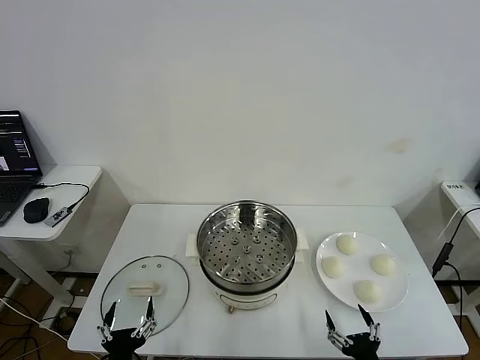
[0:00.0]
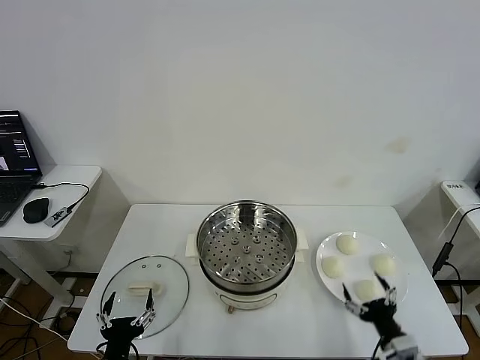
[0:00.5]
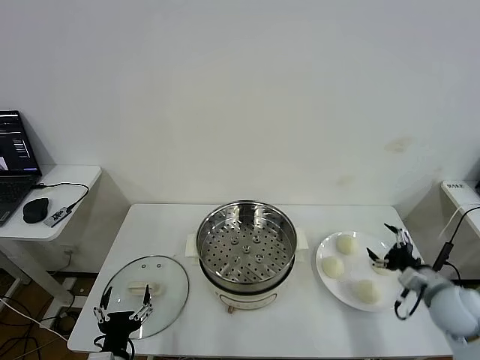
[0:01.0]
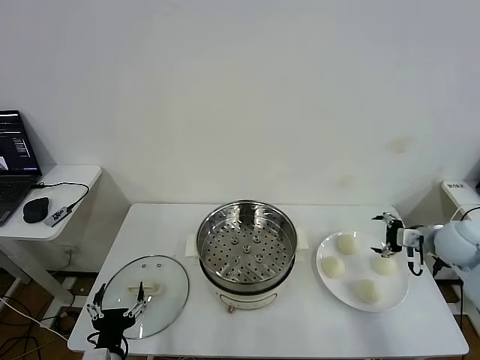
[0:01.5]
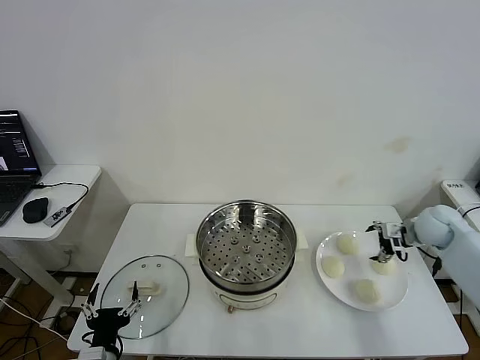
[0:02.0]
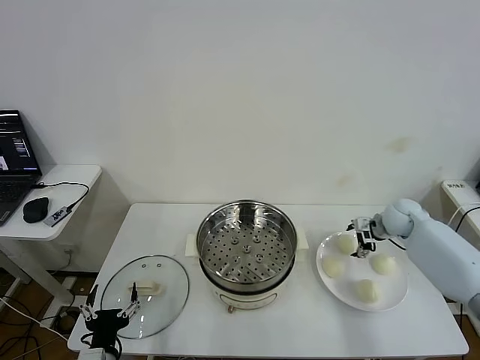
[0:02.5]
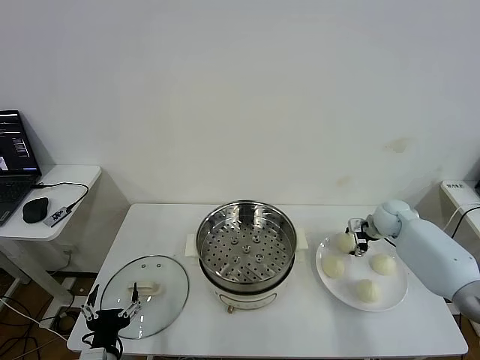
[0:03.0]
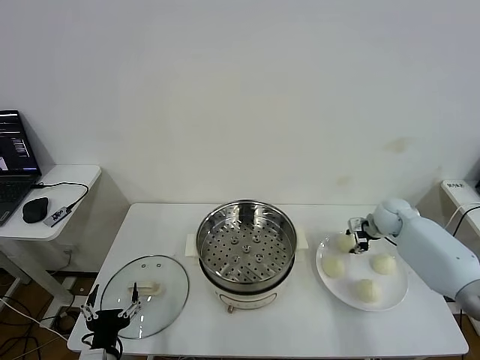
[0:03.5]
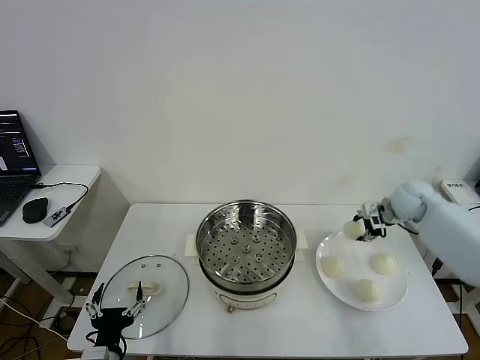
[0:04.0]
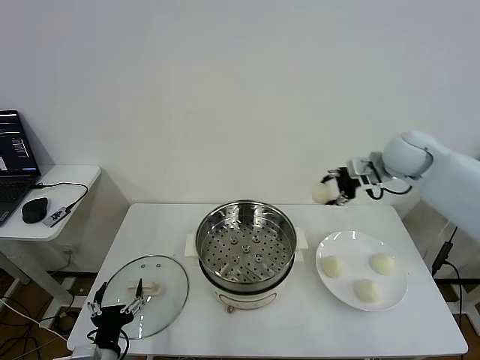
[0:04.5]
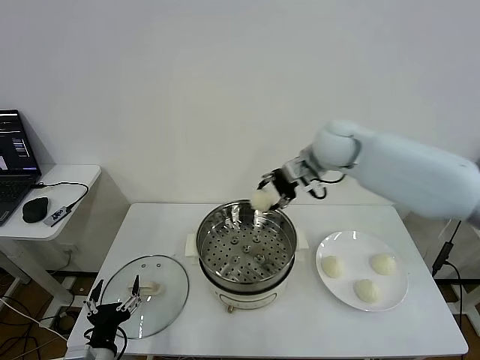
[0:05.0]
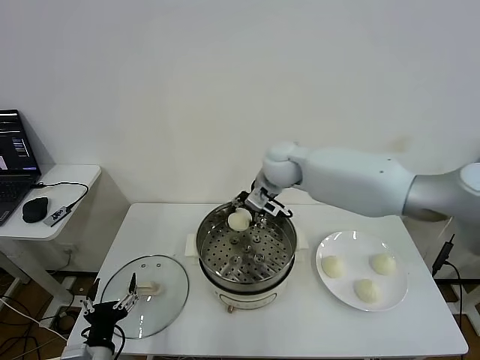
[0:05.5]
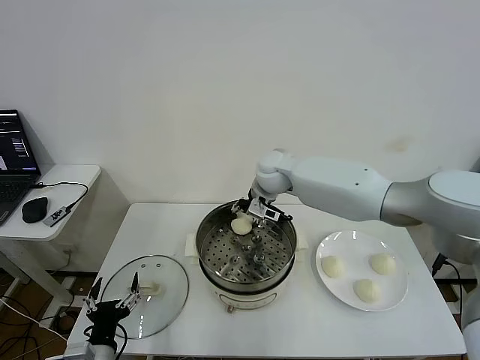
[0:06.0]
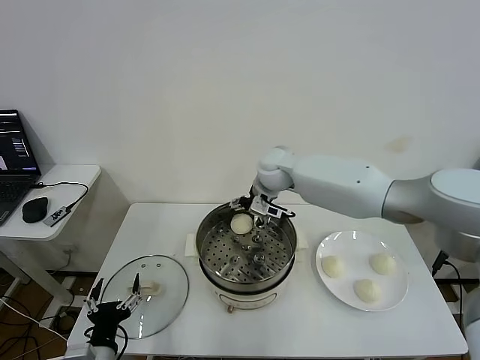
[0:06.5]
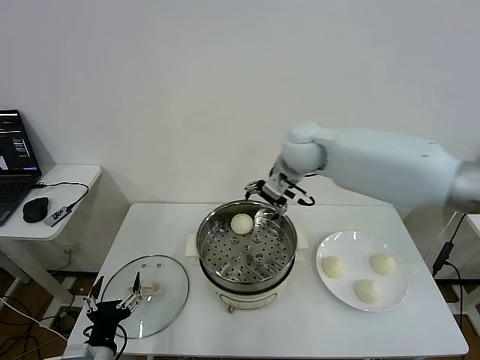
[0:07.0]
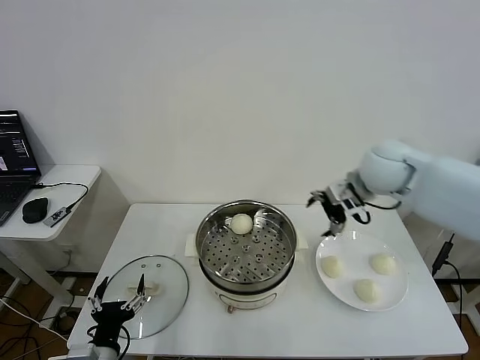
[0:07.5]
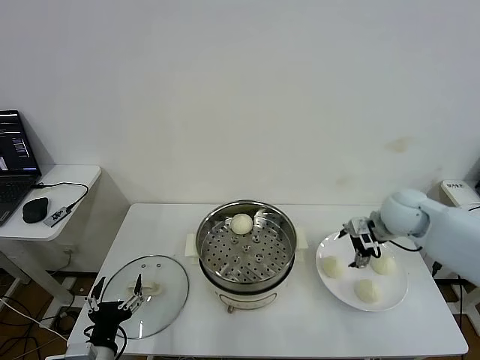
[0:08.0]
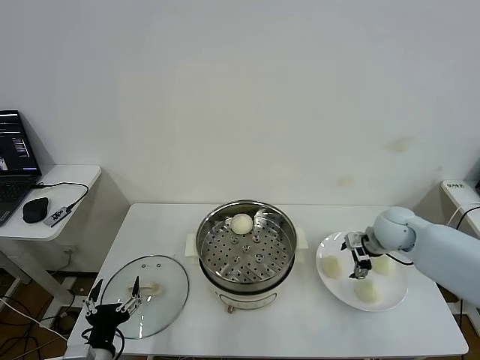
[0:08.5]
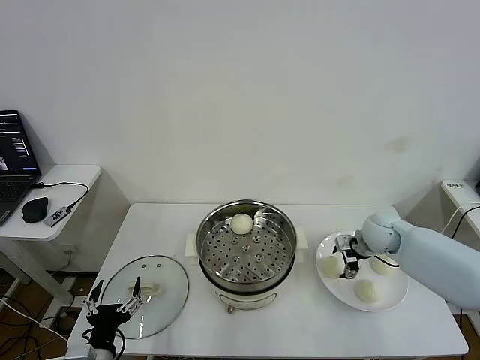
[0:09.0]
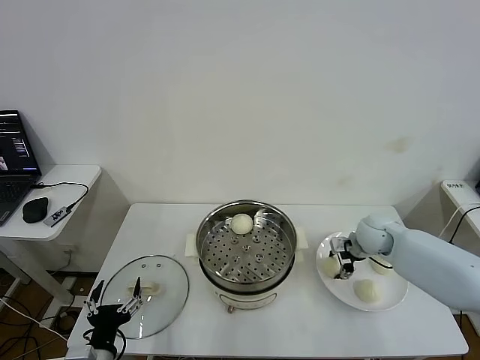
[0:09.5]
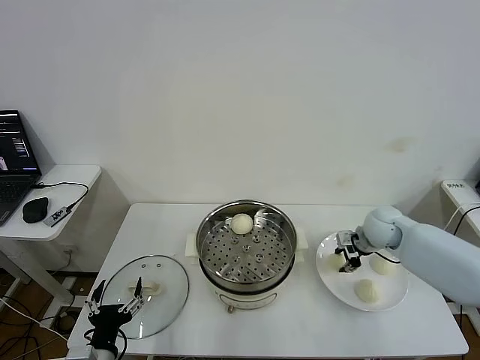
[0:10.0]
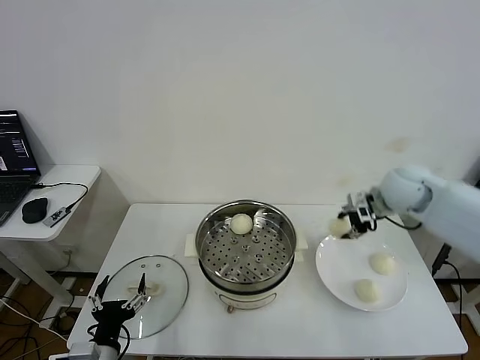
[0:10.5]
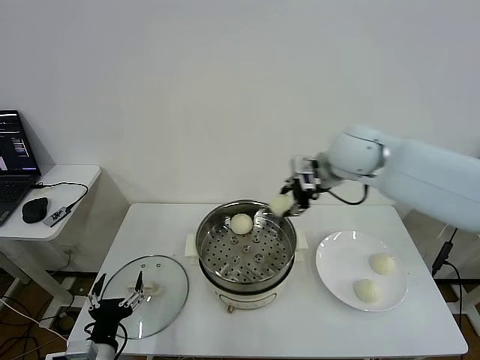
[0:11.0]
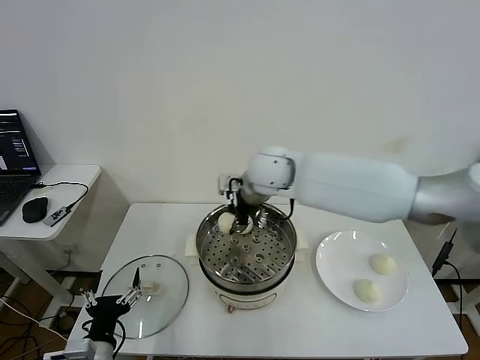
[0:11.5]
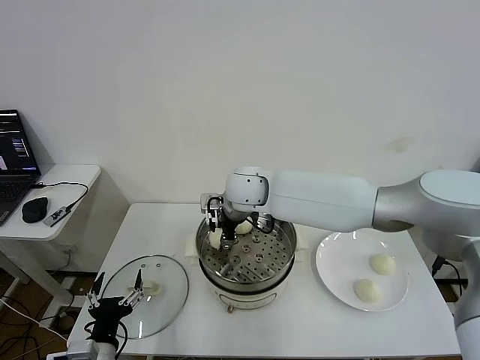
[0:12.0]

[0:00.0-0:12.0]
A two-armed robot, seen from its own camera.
Task of the whole recording: take steamed baozi put them in steamer then cover it.
Step, 0.0 to 3.0 s: Grasp the baozi in the plate with right gripper.
Step, 3.5 to 6.0 s: Place the baozi on the steamer with right gripper.
Step, 6.5 to 9.5 s: Grasp the baozi in the plate with right gripper.
2.0 to 4.0 s: The right gripper shifts about 5 cm forward, and closes.
4.0 to 6.0 s: The right gripper is displaced to the left by approximately 35 cm.
6.0 to 8.0 s: The right gripper moves to the right, approximately 25 cm, and opens.
8.0 to 10.0 s: The right gripper travels downward by roughly 10 cm, and closes its fingers.
10.0 to 12.0 s: The right gripper travels to the left by some 35 cm.

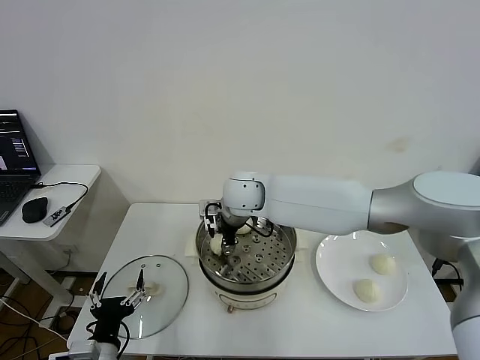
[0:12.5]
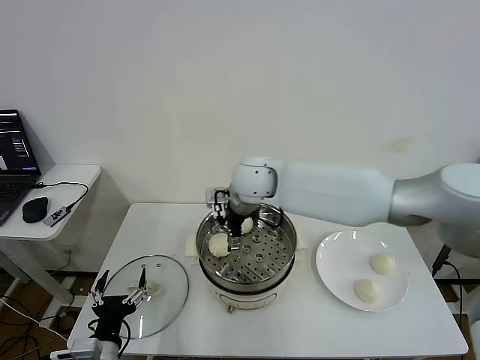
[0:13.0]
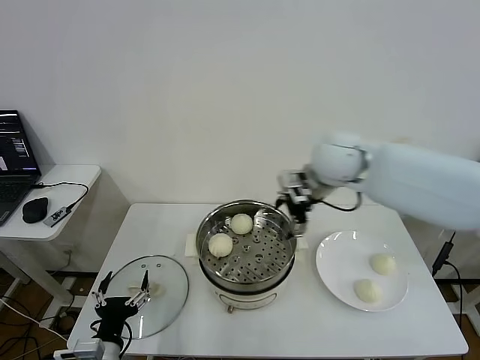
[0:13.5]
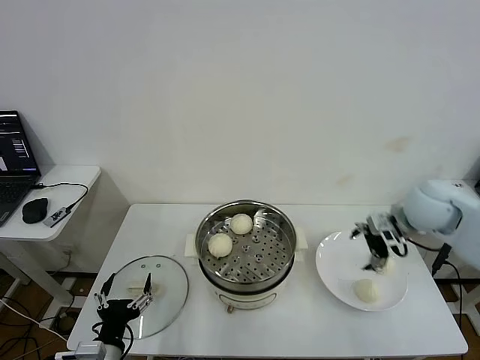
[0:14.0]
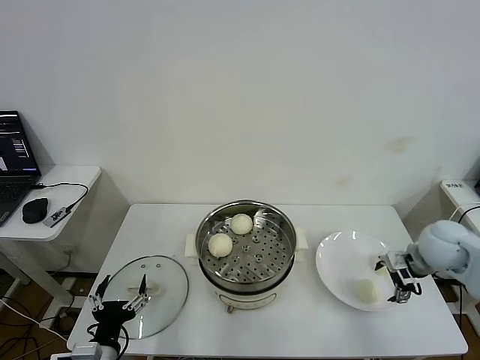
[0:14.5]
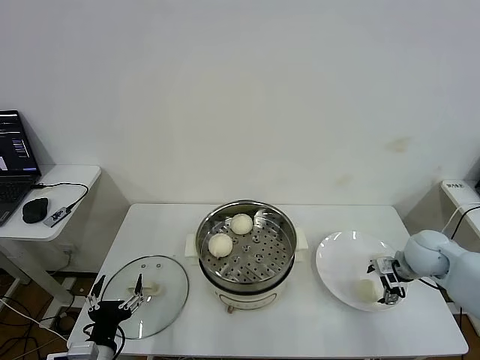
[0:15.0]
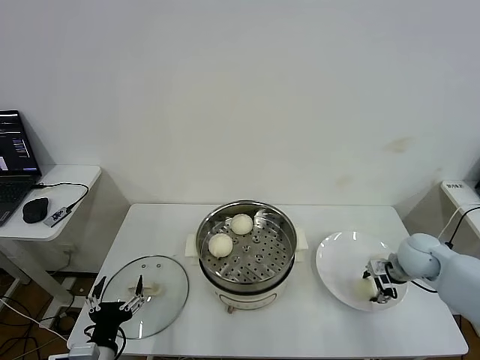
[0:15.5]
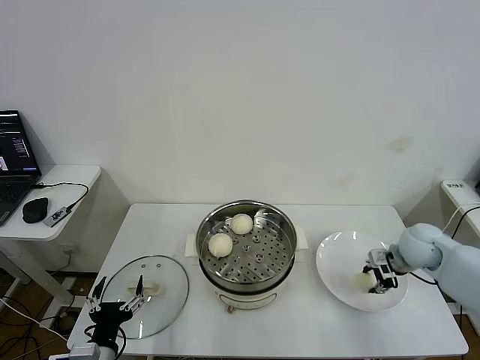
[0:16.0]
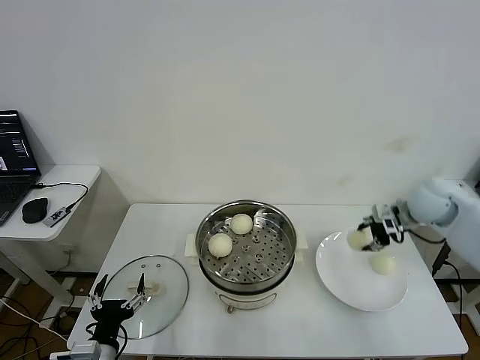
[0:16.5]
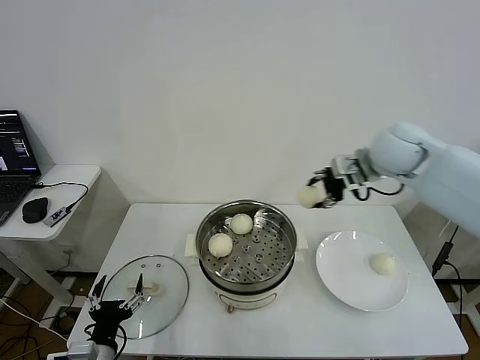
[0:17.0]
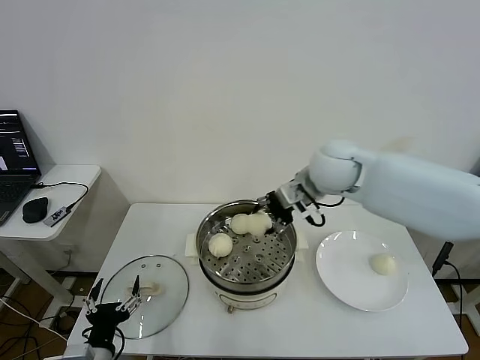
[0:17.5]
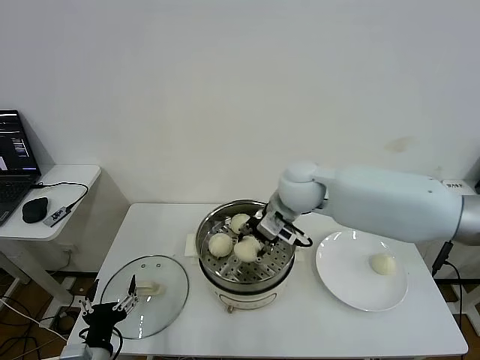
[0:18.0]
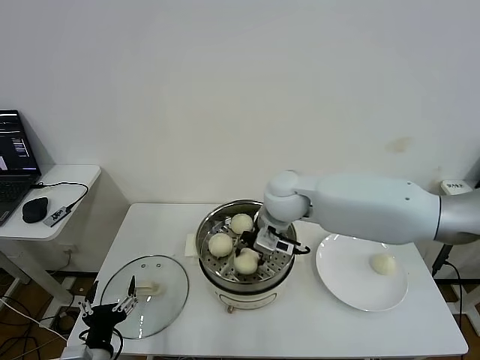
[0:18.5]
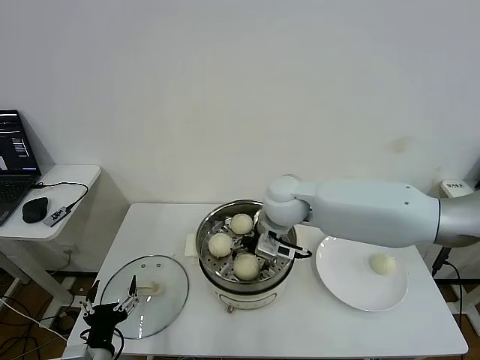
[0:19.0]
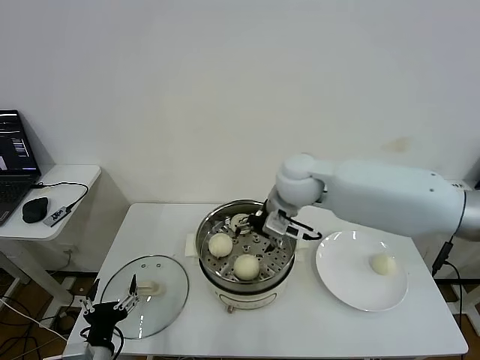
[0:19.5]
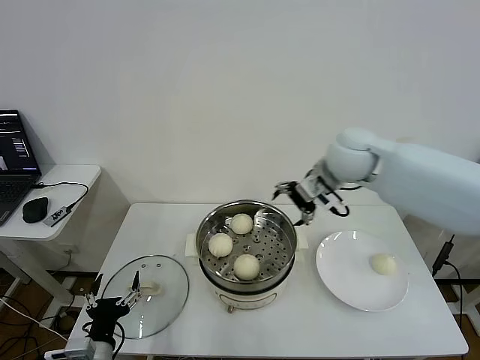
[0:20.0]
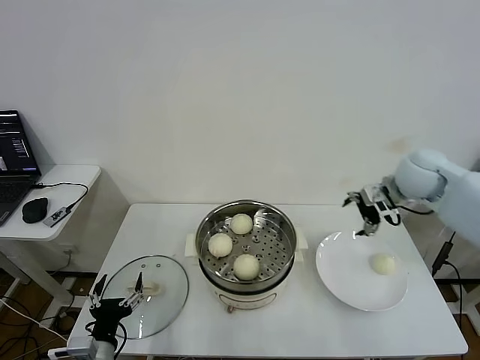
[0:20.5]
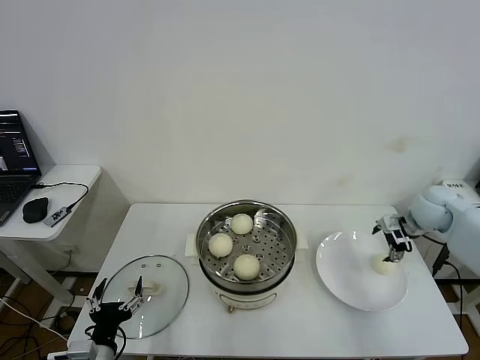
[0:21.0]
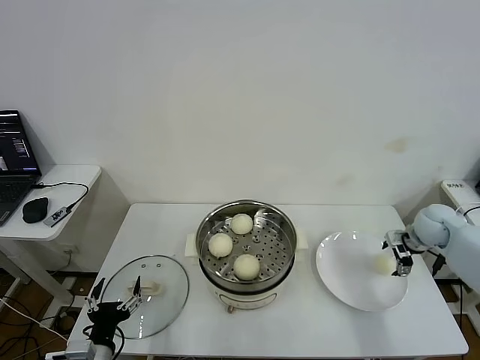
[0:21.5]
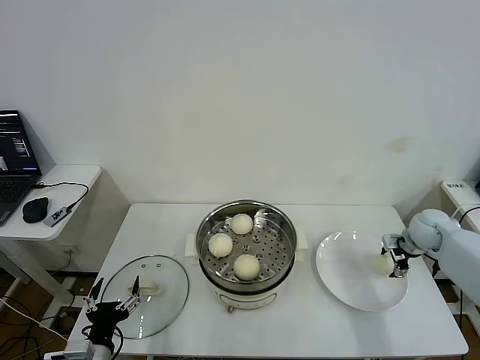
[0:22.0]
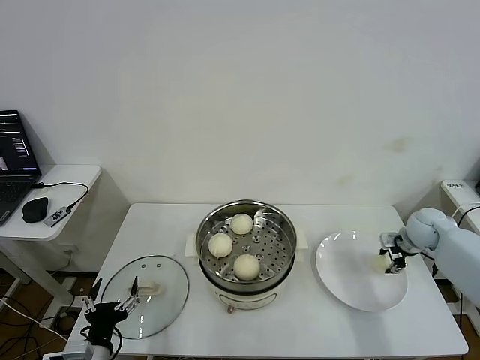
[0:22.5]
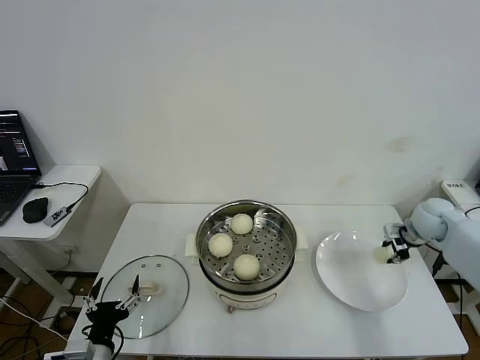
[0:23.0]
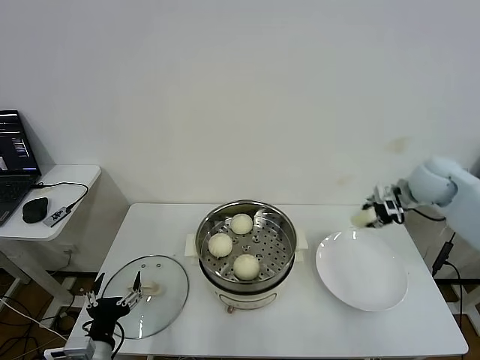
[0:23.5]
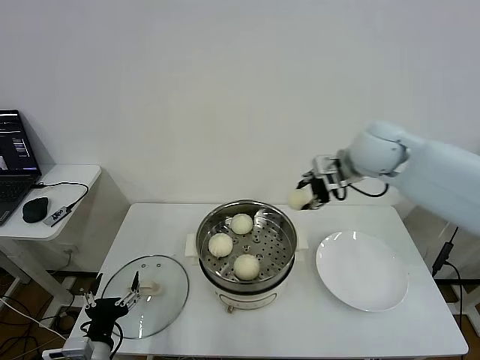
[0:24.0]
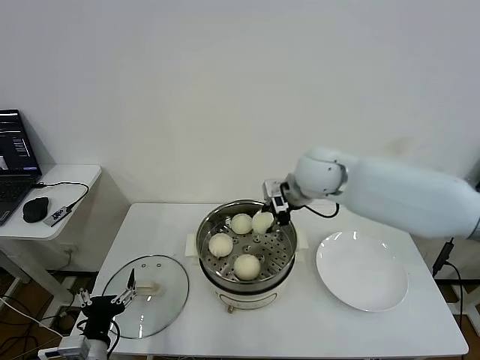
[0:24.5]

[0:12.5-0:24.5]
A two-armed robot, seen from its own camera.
Task of the whole recording: take steamed baozi put them in steamer then cover it.
Step, 13.0 to 15.5 s: Grasp the baozi in the plate with right gripper.
Step, 16.0 to 19.0 s: Place the baozi on the steamer with right gripper.
Step, 19.5 to 22.5 s: Grasp the baozi in the plate with right gripper.
12.5 to 14.5 s: The right gripper is displaced to the right by roughly 40 cm, and opens.
14.5 to 16.5 s: The right gripper is displaced forward by approximately 5 cm, and closes up.
16.5 to 18.5 s: The right gripper is displaced to the left by roughly 30 cm.
18.5 to 20.5 s: The right gripper heads to the right, covering some 25 cm, and opens its fingers.
20.5 to 22.5 s: The right gripper is displaced downward and to the right by some 20 cm, and closes.
22.5 to 24.5 s: The right gripper moves to the left and upward, some 35 cm.

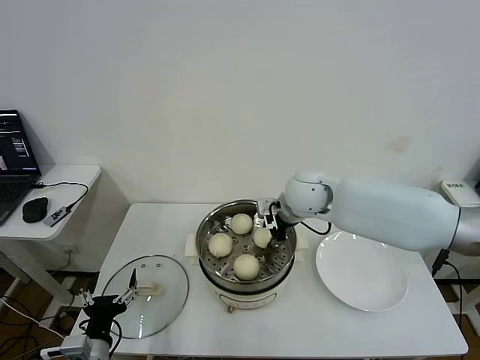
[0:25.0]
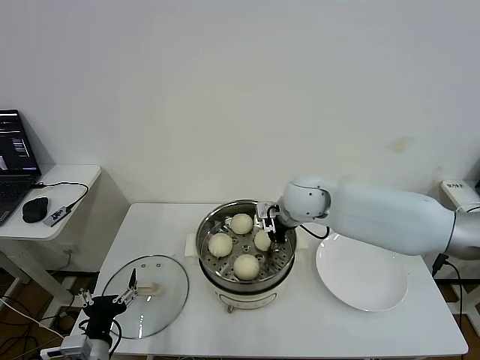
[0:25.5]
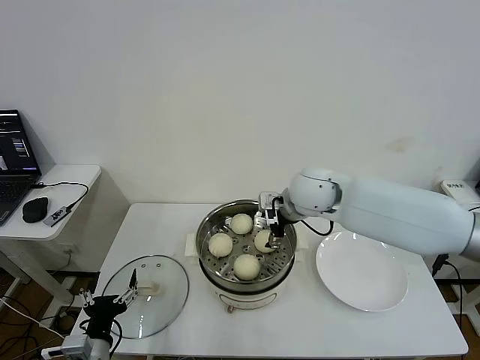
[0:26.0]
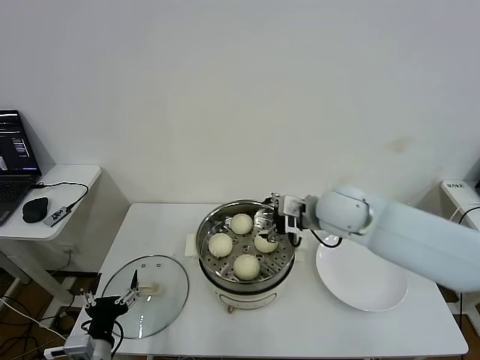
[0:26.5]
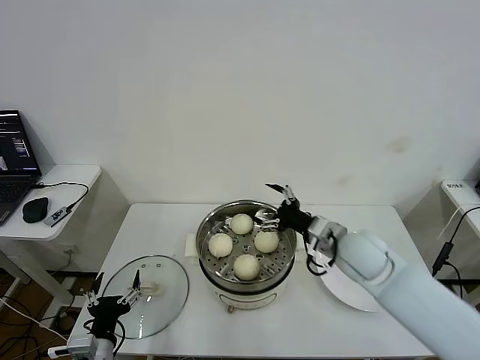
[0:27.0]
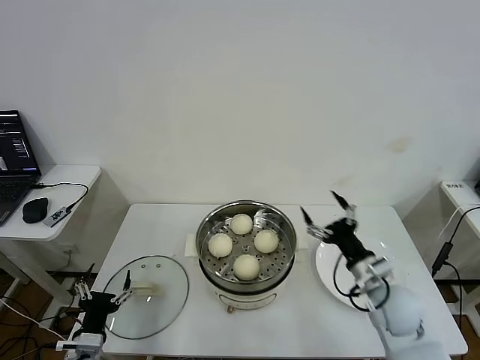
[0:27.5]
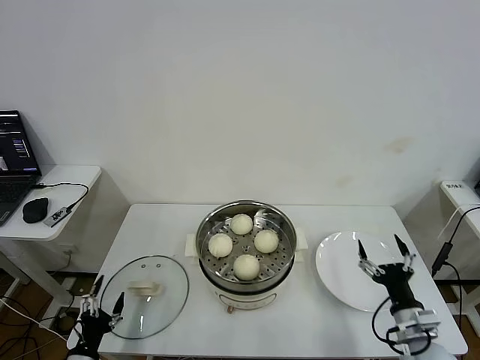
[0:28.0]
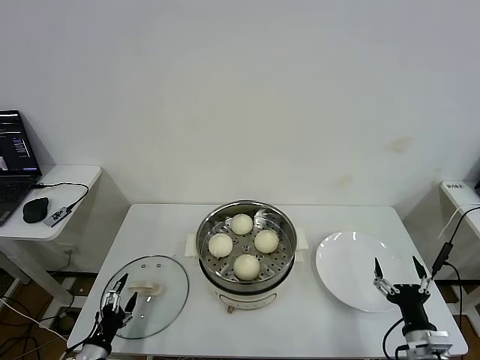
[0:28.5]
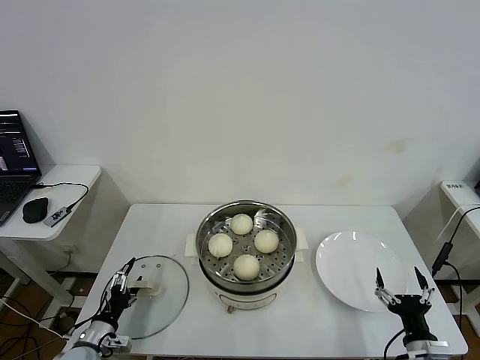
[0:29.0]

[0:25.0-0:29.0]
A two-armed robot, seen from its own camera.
Task of the whole recording: take steamed baozi put them in steamer then cover it.
25.0 to 27.0 s: The right gripper heads backward, to the right and downward, covering some 15 cm, and opens.
27.0 to 29.0 s: The right gripper shifts about 30 cm backward, downward and to the right; the left gripper moves downward, to the left and forward, roughly 15 cm.
